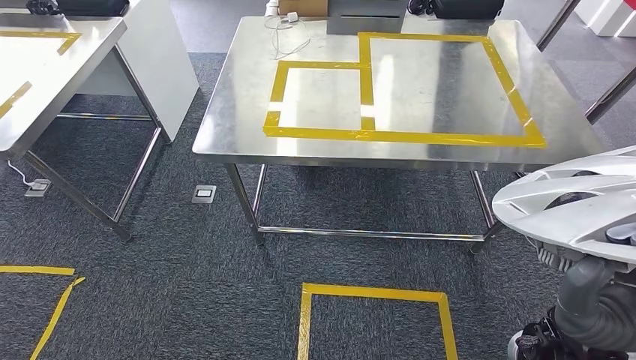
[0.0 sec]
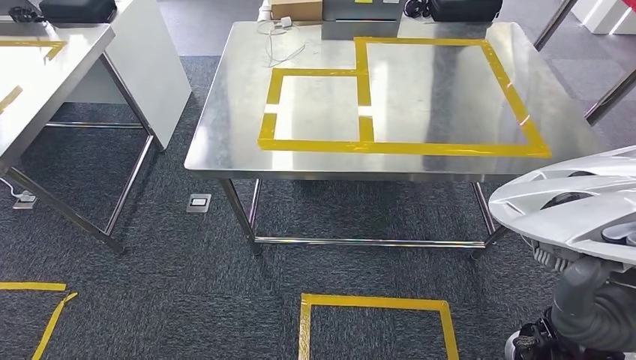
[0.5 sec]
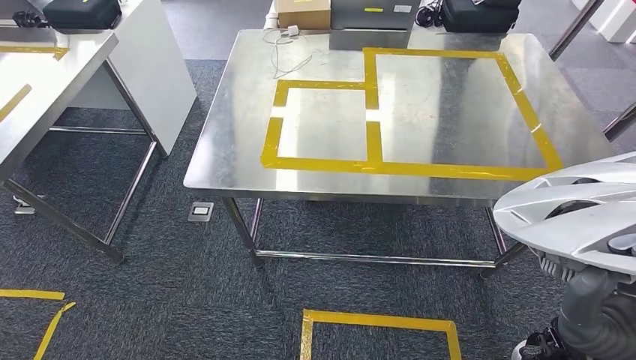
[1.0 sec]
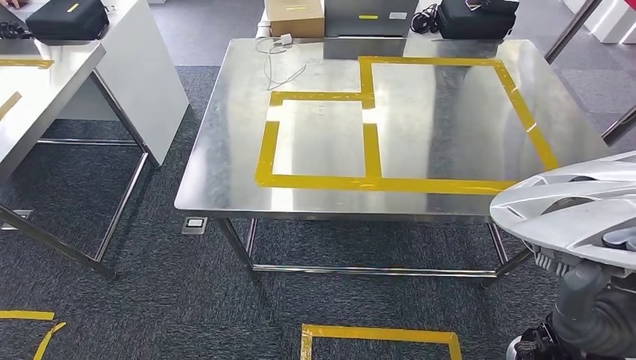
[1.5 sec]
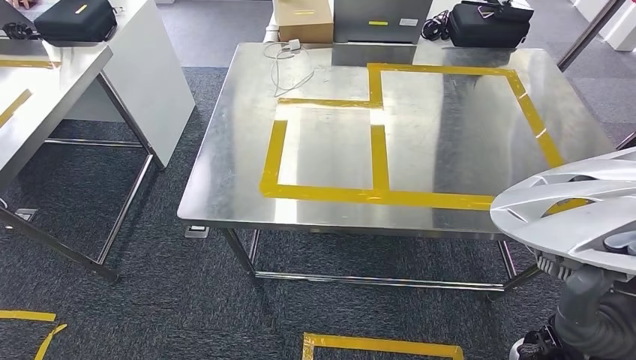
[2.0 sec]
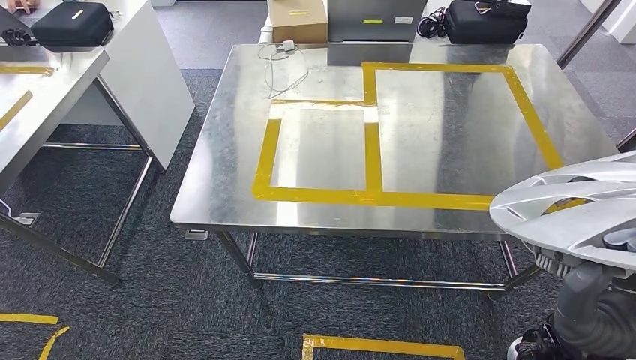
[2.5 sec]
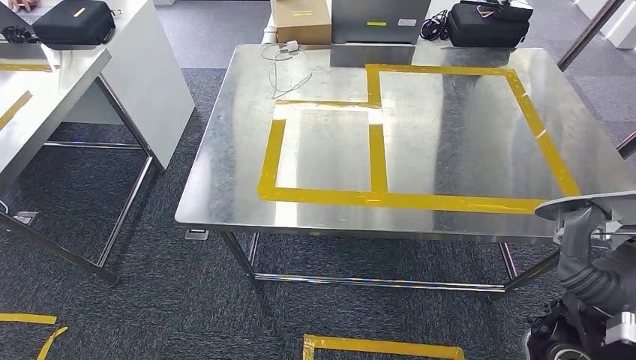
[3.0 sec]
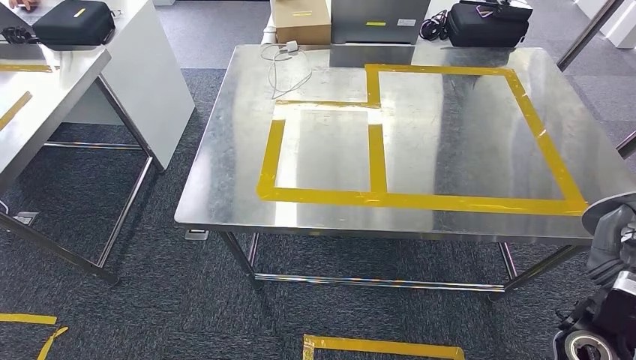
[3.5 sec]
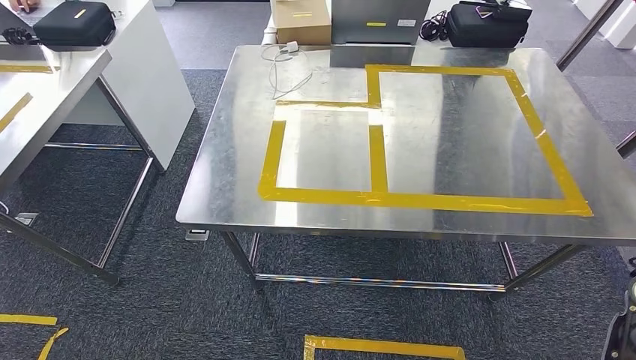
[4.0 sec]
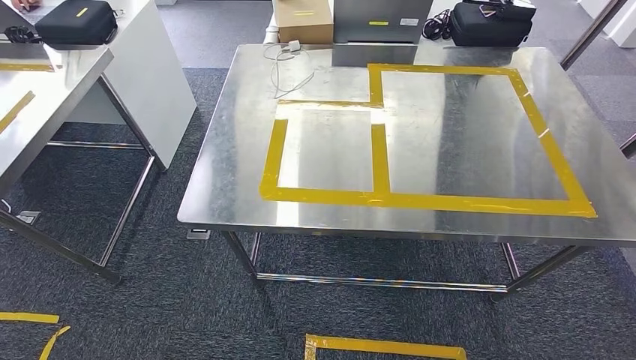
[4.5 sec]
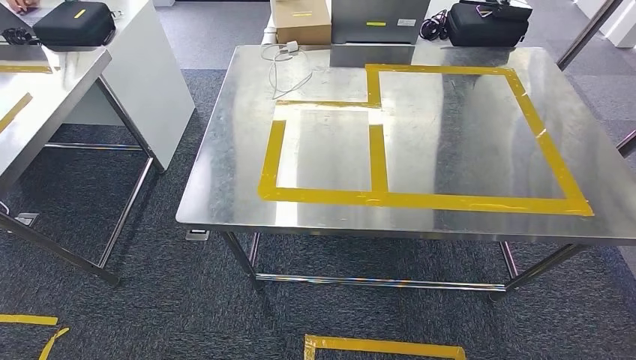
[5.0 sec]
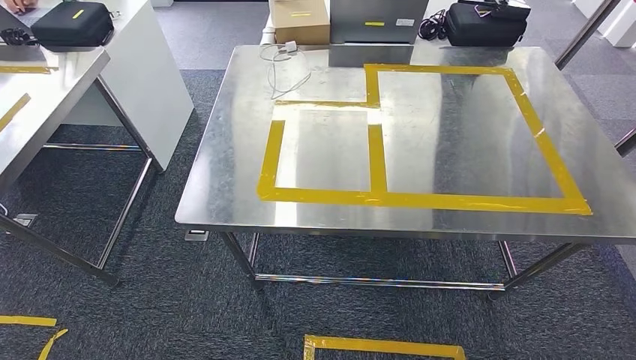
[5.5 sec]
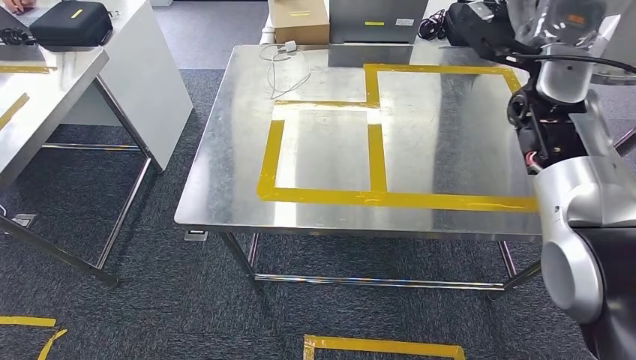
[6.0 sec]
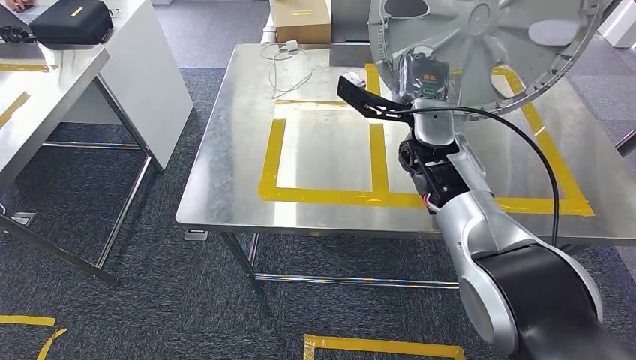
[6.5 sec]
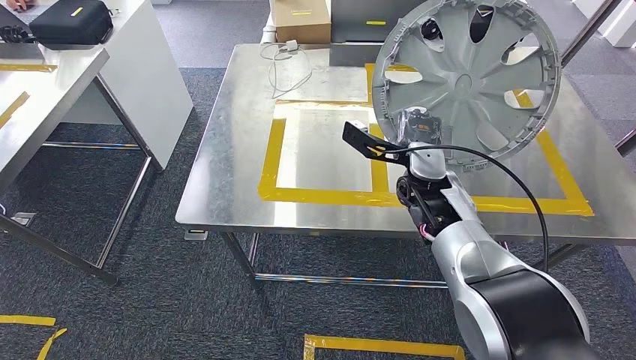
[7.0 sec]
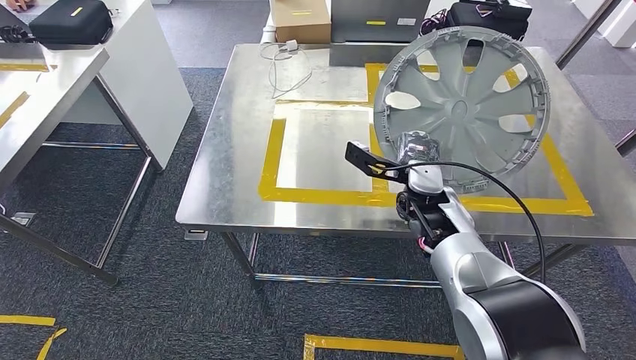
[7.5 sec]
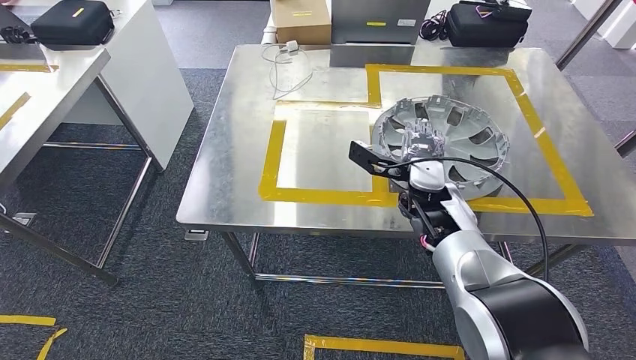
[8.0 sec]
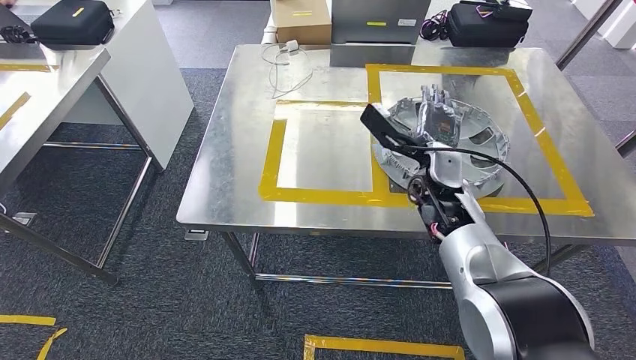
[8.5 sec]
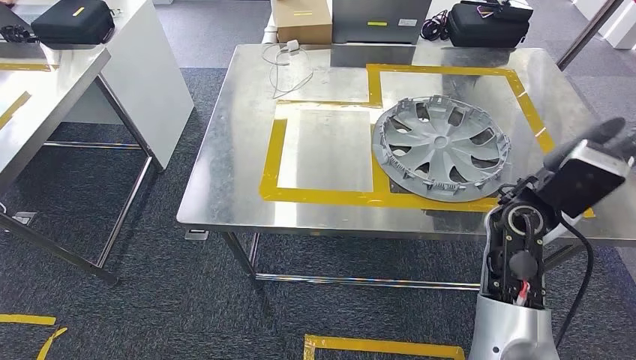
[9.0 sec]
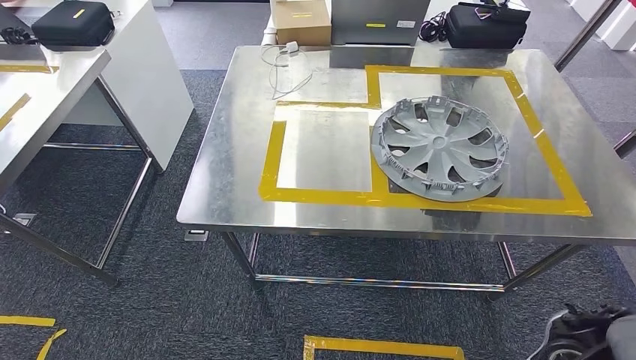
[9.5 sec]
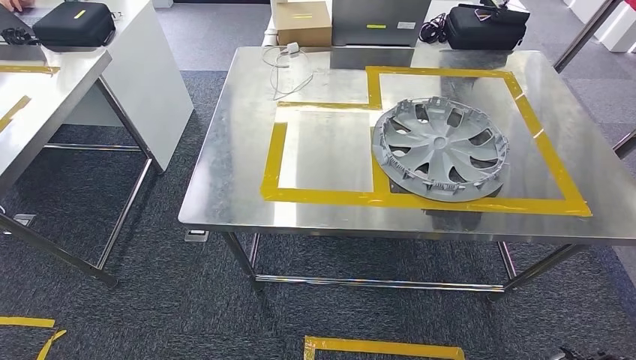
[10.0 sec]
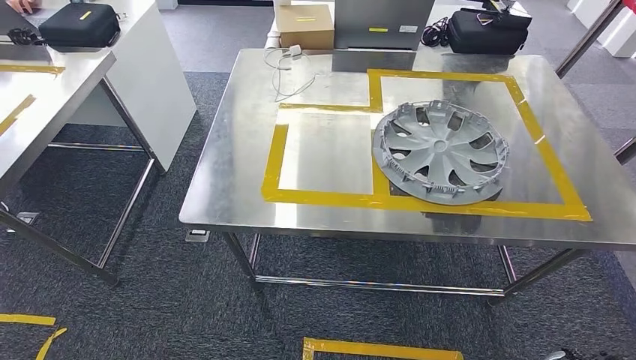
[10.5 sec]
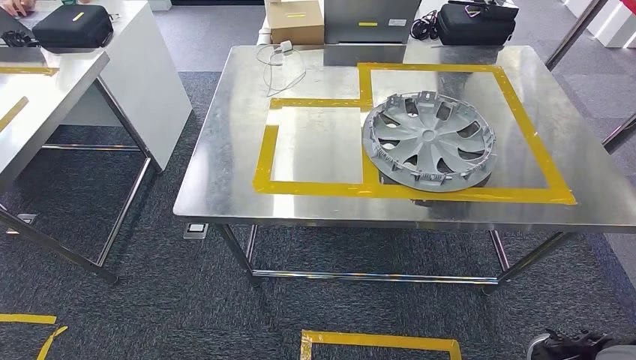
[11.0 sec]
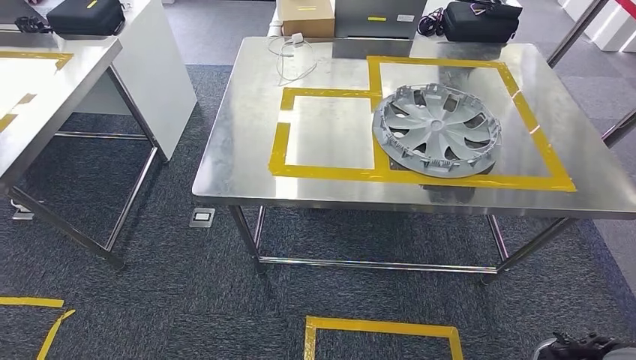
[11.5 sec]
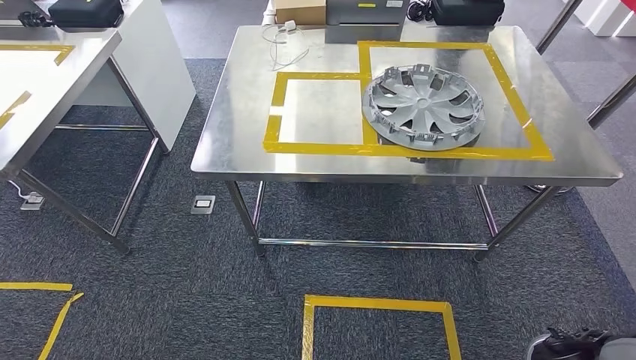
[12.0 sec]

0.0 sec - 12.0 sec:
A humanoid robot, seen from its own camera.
Step, 2.0 sec - 11.5 sec: Insert the large material into the corresponding slot on the workbench.
2.0 sec - 4.0 sec: The right hand shifts roughly 20 cm to the right and forward.
4.0 sec - 6.0 sec: The right hand heads forward and upward, covering some 25 cm, and reaches about 20 cm to the right, then returns.
8.0 sec - 10.0 sec: The right hand travels backward and upward by about 30 cm.

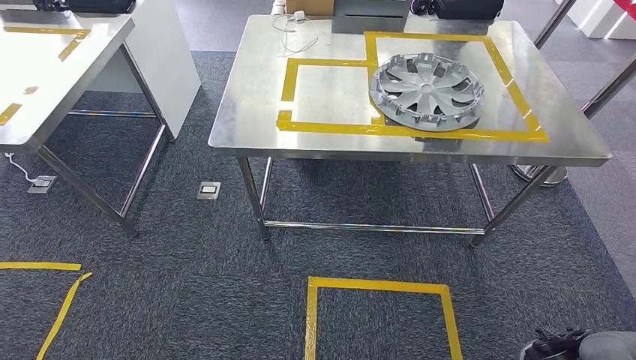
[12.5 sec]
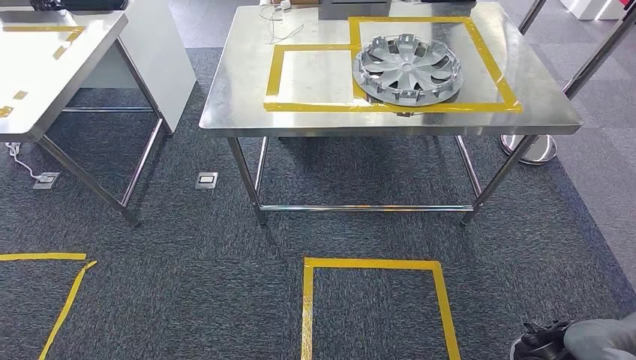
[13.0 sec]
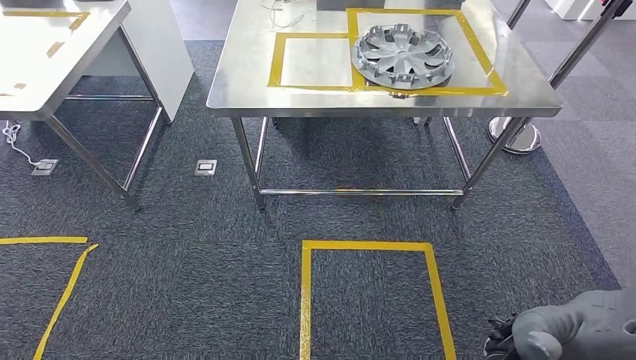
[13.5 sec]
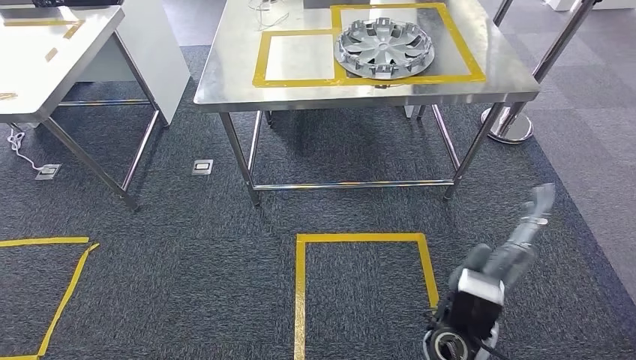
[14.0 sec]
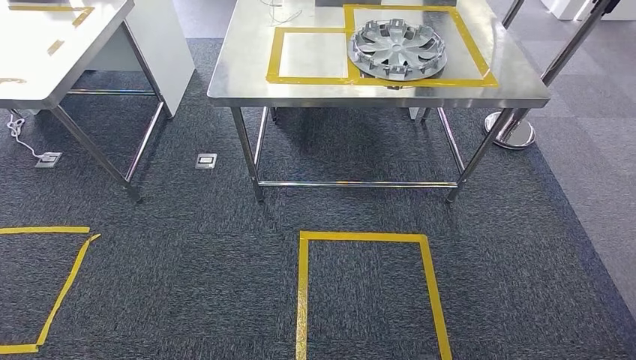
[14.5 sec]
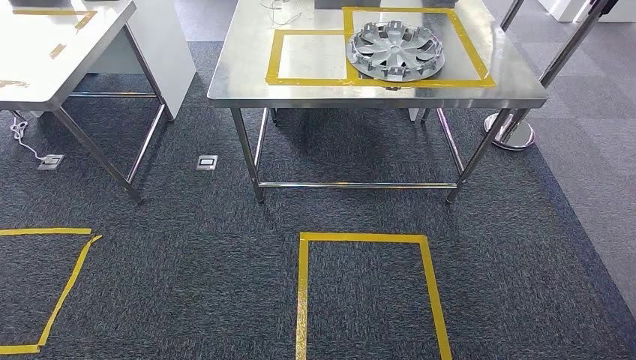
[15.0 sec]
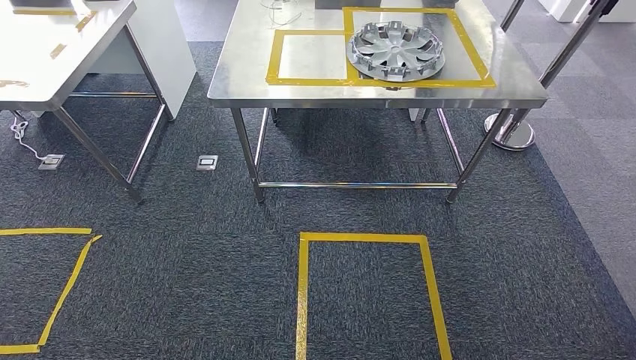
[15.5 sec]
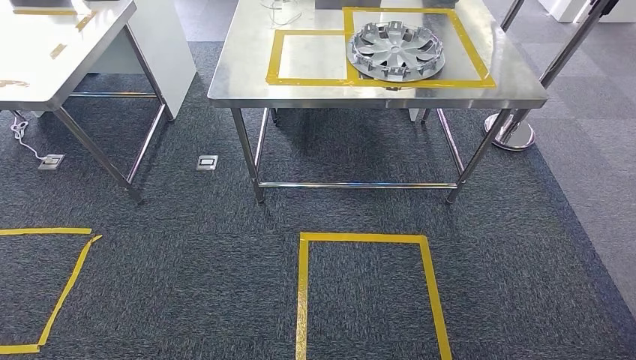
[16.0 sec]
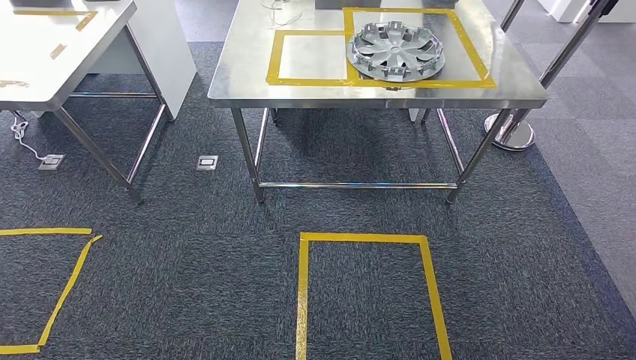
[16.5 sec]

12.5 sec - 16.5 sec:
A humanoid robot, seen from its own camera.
Step, 12.5 sec - 16.5 sec: Move to the initial position of the shelf.
14.5 sec - 16.5 sec: The right hand heads backward, covering some 5 cm.
